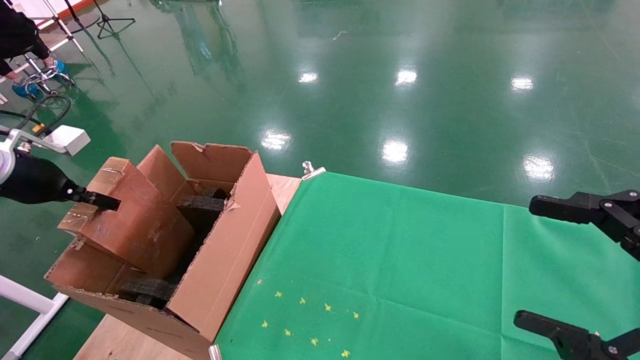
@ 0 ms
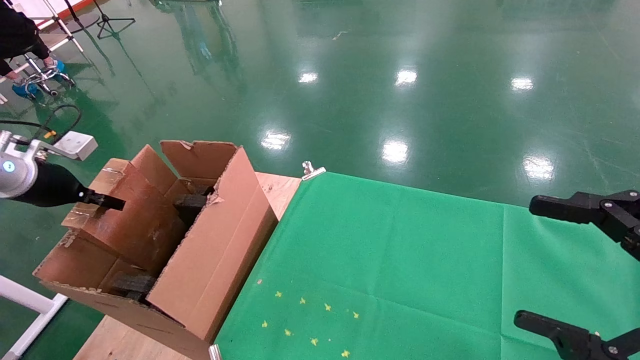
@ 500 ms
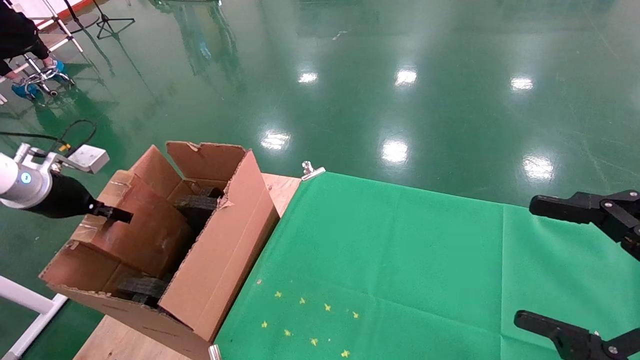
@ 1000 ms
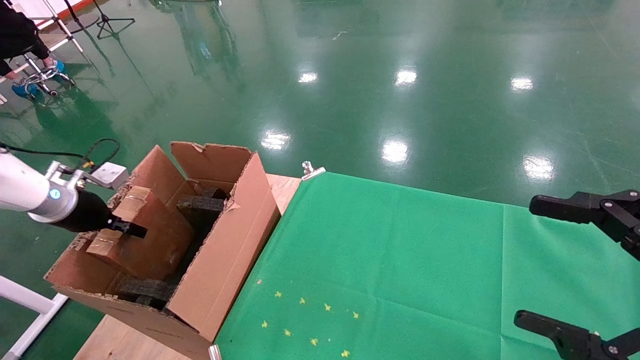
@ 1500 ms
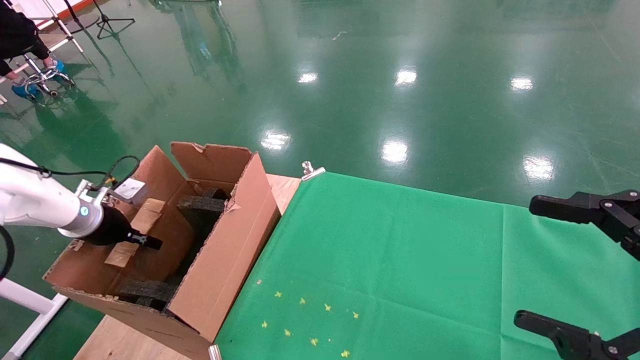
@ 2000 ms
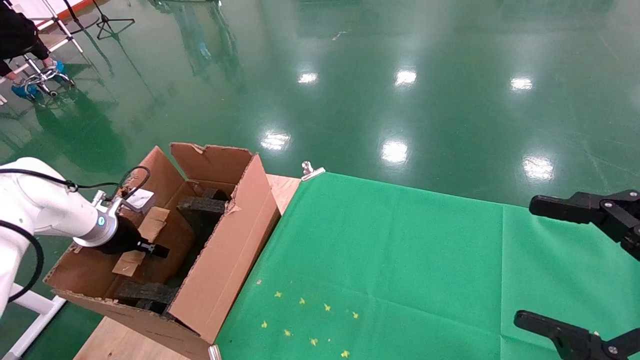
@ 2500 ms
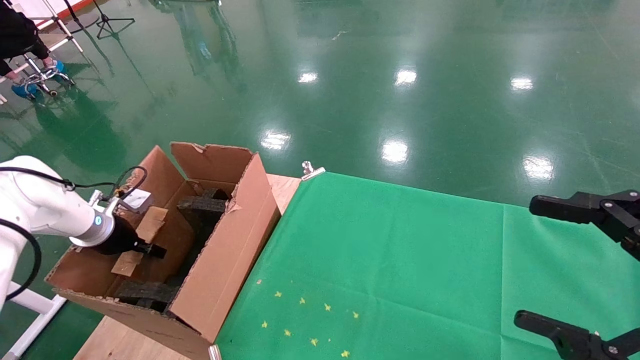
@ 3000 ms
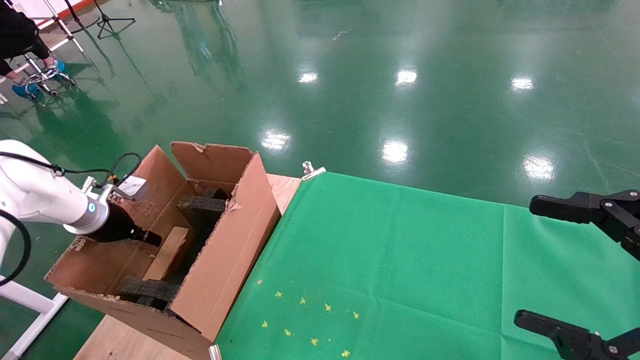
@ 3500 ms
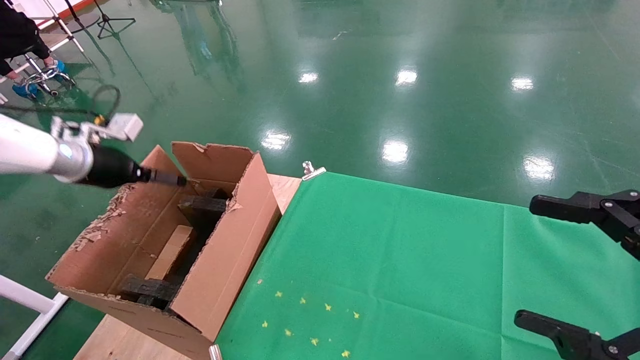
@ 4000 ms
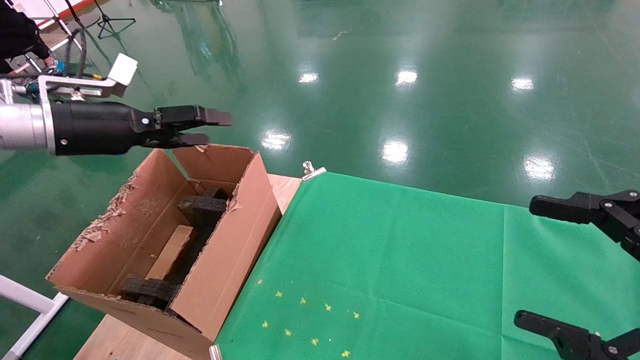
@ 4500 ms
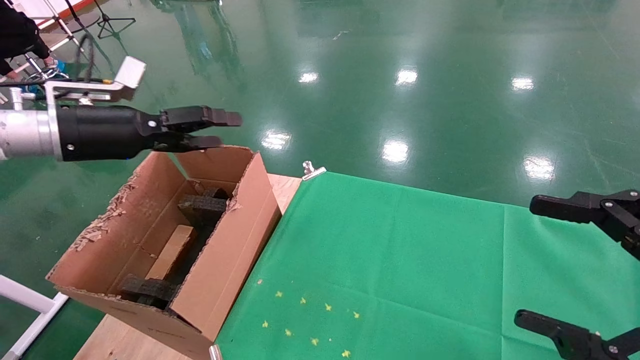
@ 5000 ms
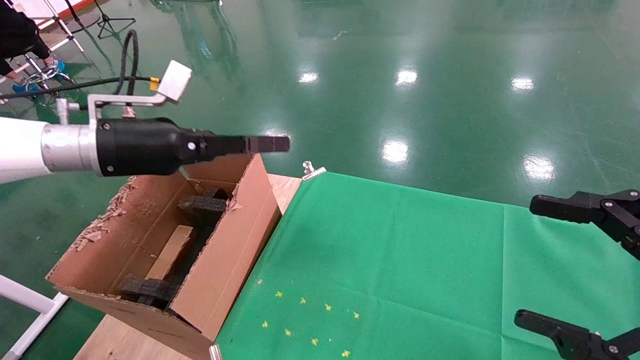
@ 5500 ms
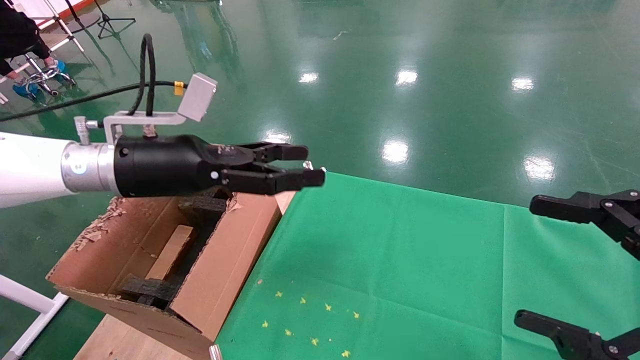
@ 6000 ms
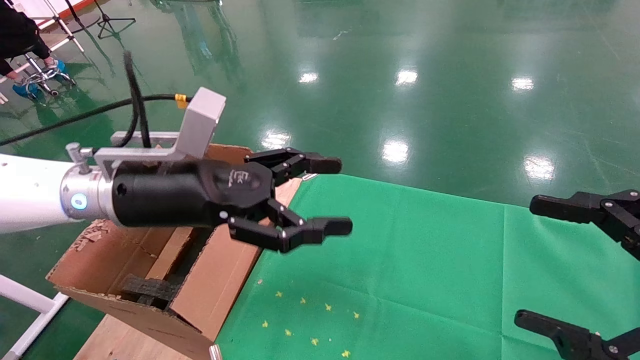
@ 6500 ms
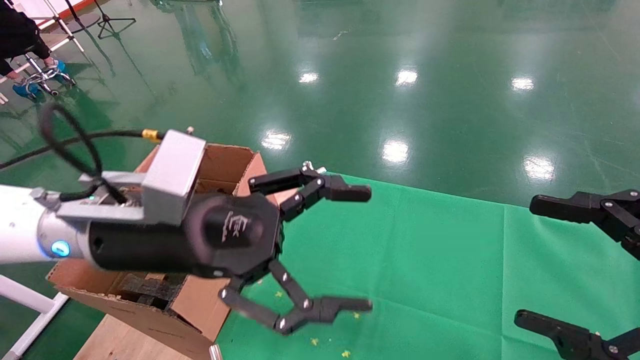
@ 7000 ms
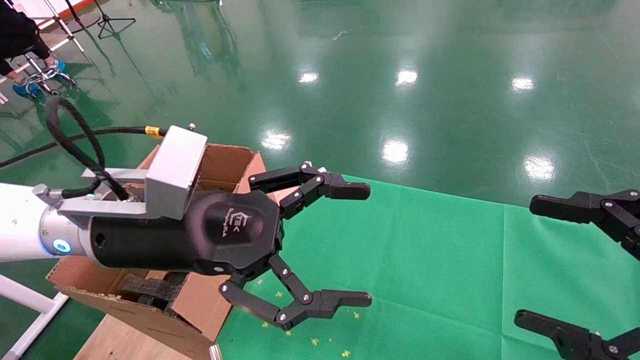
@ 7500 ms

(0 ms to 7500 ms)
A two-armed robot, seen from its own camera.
Task of the whole recording: using a robotic arm to pick up a cardboard box and palace it the carton.
Step, 0 ms - 4000 ms: Place the mouse and the power cord paper box into the container.
0 ms - 2000 ms: The left gripper moves downward and forward, roughly 15 cm.
2000 ms - 4000 ms: The left gripper shifts roughly 10 cm upward, and opens.
4000 ms - 5500 ms: The left gripper goes approximately 15 cm to the right.
5500 ms - 7500 ms: The left gripper moves to the right and backward, about 15 cm.

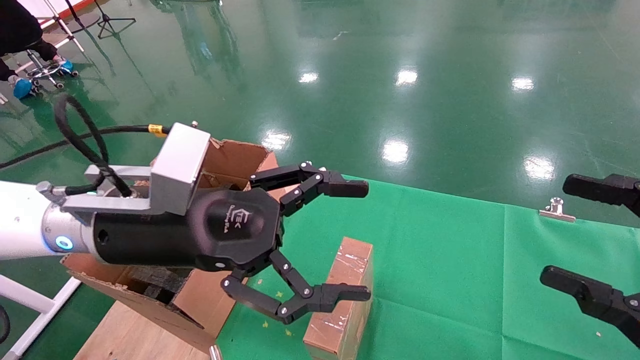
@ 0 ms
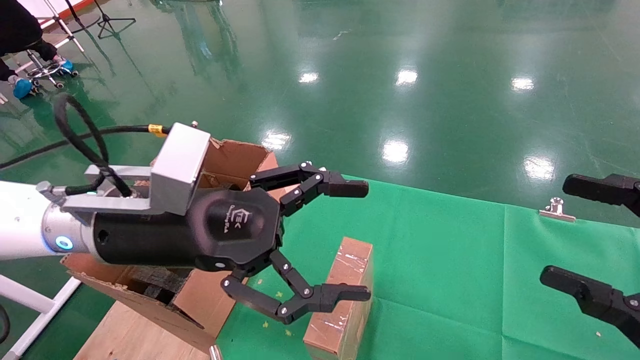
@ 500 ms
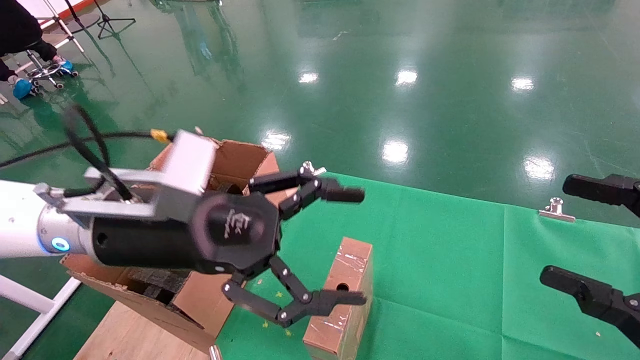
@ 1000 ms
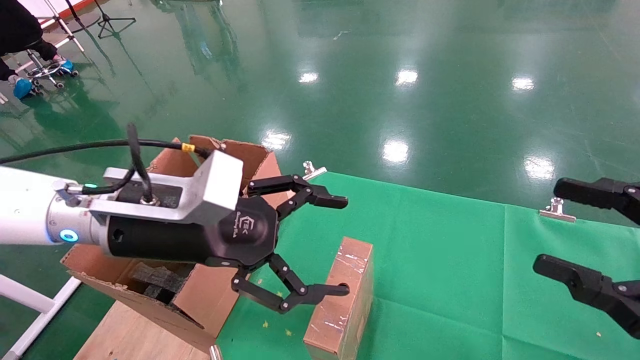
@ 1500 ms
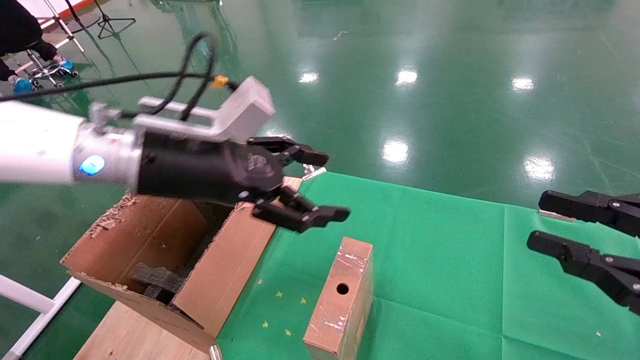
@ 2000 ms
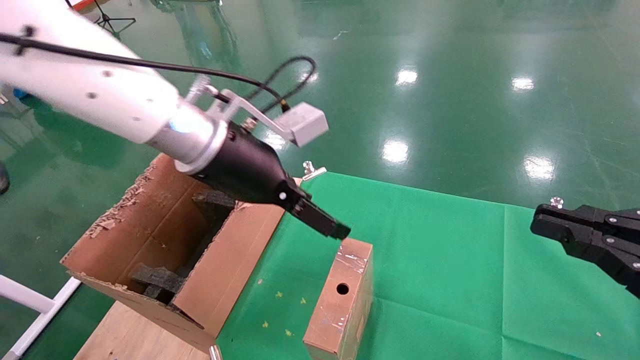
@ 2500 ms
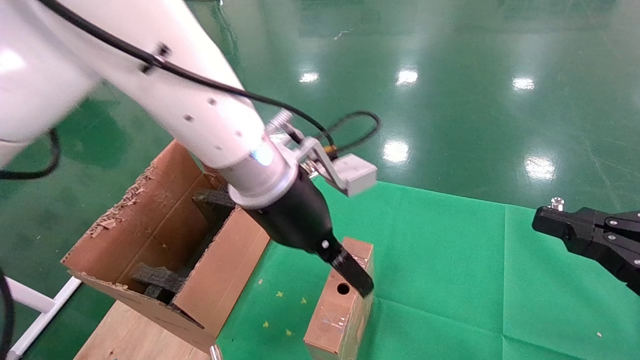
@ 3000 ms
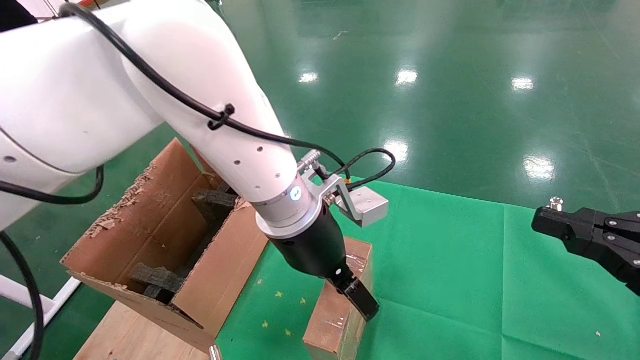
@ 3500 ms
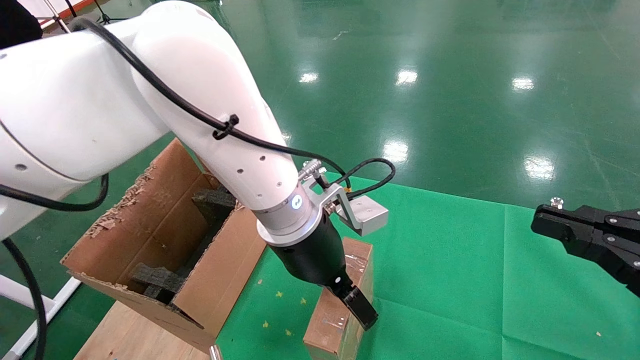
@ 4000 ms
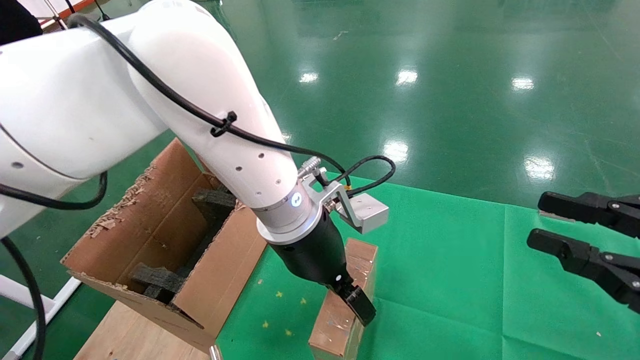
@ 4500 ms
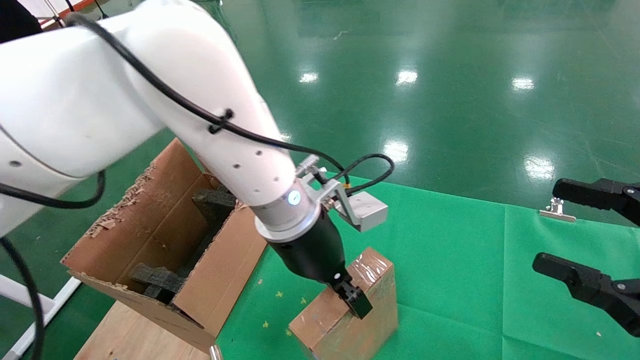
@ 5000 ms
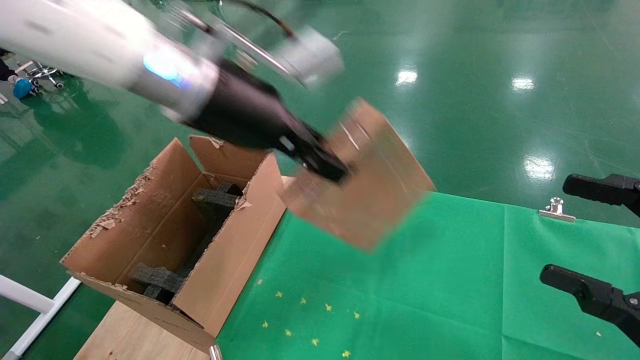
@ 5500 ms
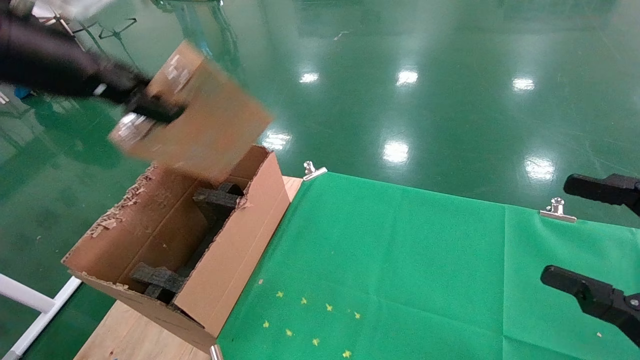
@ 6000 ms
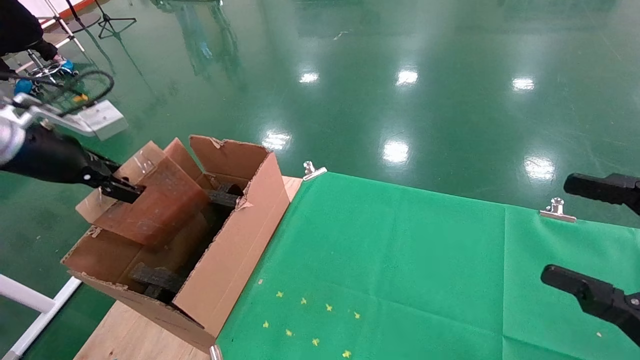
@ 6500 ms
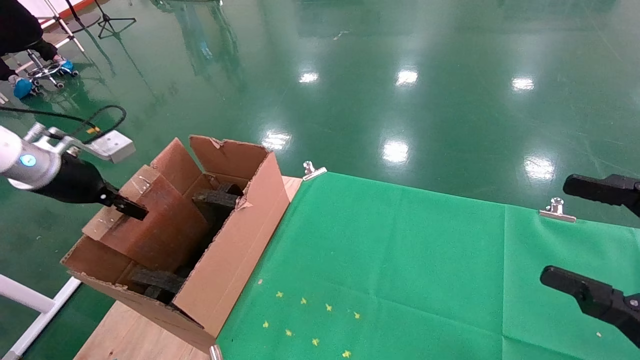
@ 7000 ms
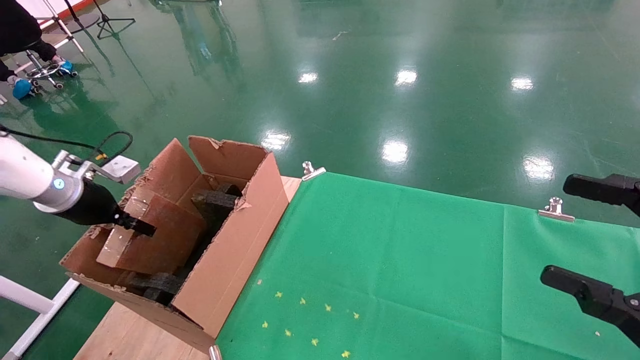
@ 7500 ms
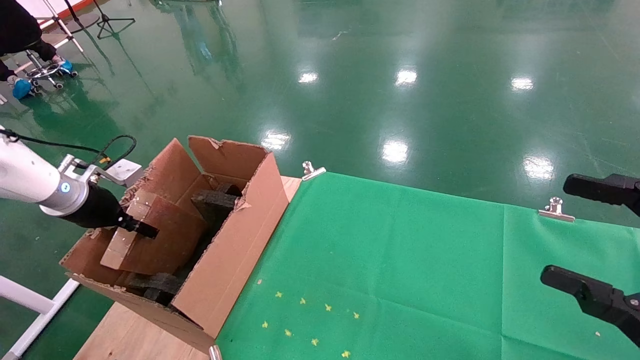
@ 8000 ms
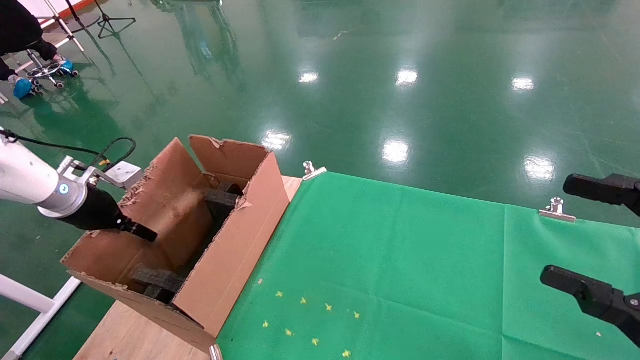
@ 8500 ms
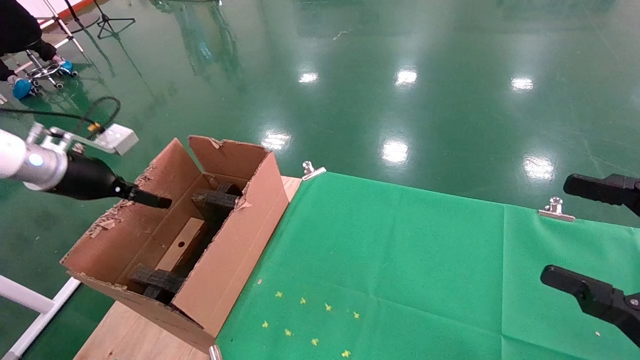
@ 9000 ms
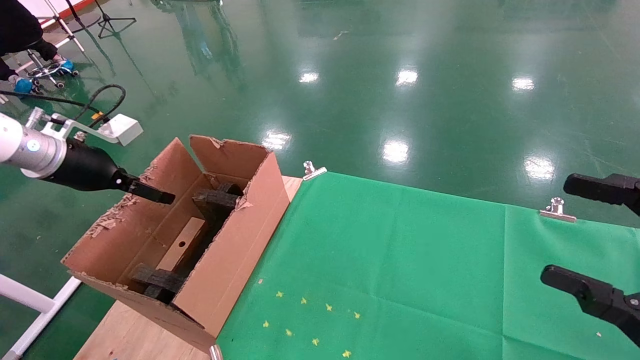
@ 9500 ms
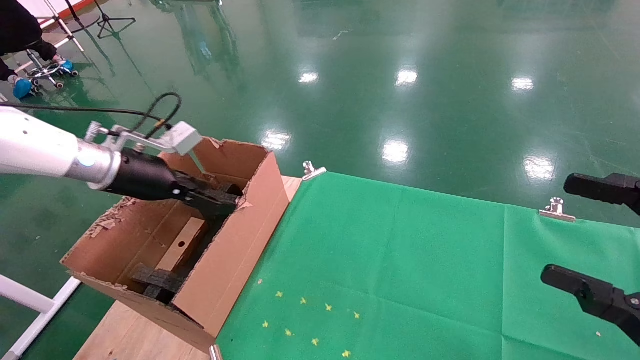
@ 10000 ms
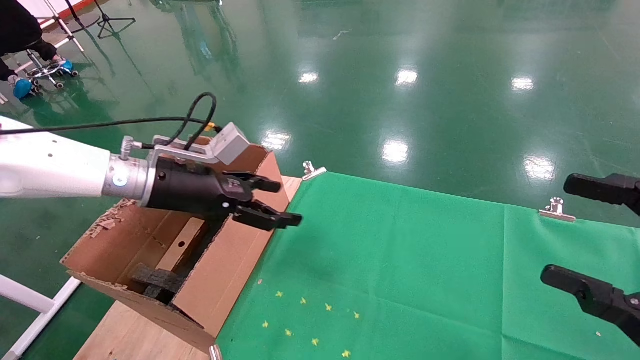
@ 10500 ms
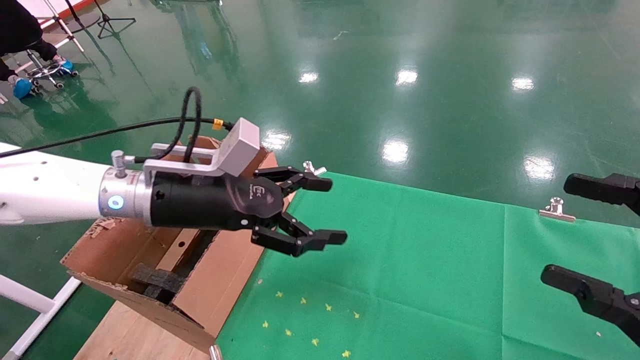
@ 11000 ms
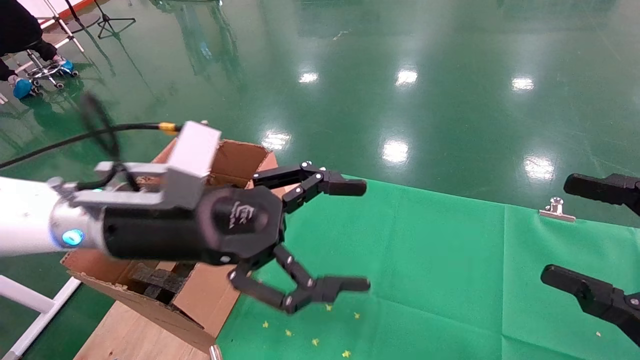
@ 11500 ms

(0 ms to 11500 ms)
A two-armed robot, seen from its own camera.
Task of the whole recording: using a robotic arm to pick up a cardboard box and palace it the carton.
Step, 1500 ms - 4500 ms: Pick up the mouse and the power cord paper box.
Step, 5000 ms - 8000 ms: Place the mouse and the power cord paper box into the container.
0 ms - 2000 ms: The right gripper closes up. The left gripper goes roughly 5 cm forward.
2000 ms - 4000 ms: The left gripper heads to the right and downward, covering about 15 cm. The right gripper closes up.
4000 ms - 6000 ms: The left gripper goes about 30 cm to the left and upward, and closes. Meanwhile the right gripper opens.
6000 ms - 7500 ms: The left gripper goes approximately 30 cm downward, to the left and forward.
7500 ms - 9500 ms: The left gripper goes approximately 5 cm upward, and opens its fingers.
9500 ms - 11500 ms: The left gripper shifts approximately 25 cm to the right and backward.

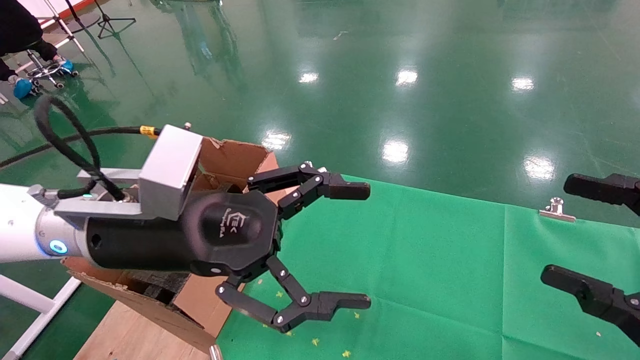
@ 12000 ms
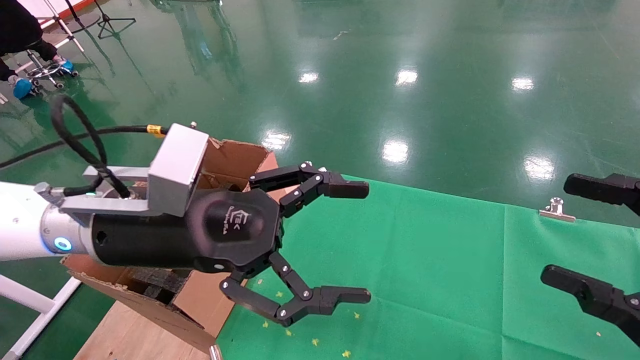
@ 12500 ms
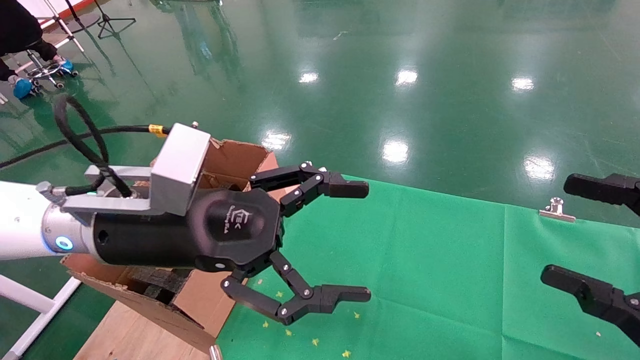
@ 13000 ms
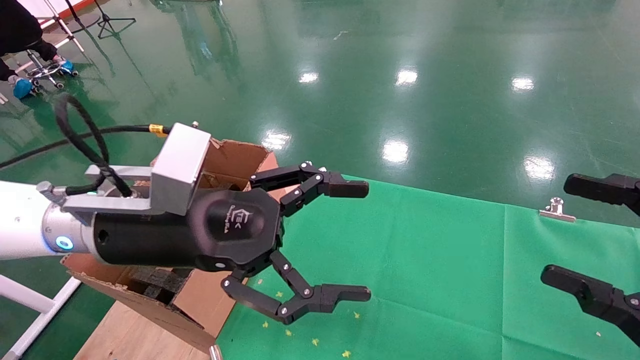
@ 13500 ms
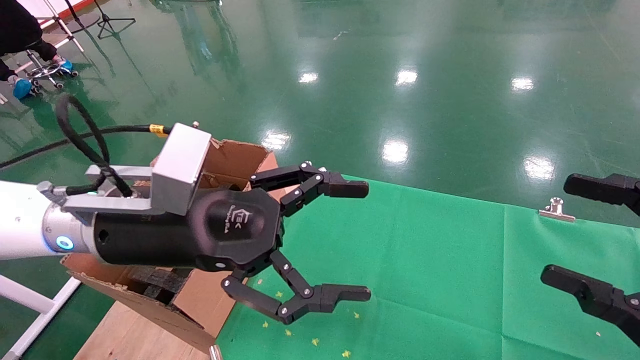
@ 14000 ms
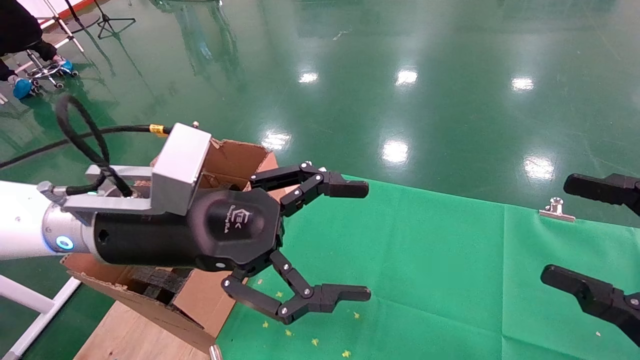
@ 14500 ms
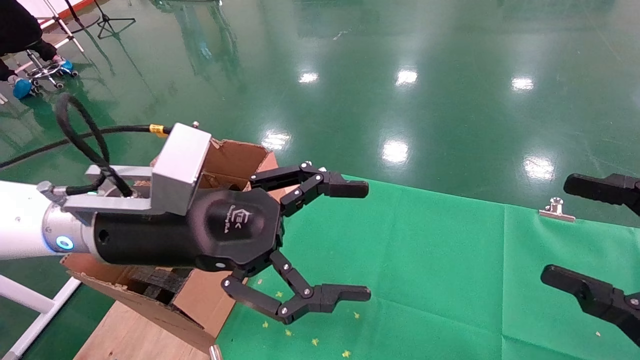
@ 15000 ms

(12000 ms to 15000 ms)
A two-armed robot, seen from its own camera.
Task of the whole recording: using a robotic arm to pick up a cardboard box and palace it the carton.
12000 ms - 15000 ms: Both grippers stay put.
